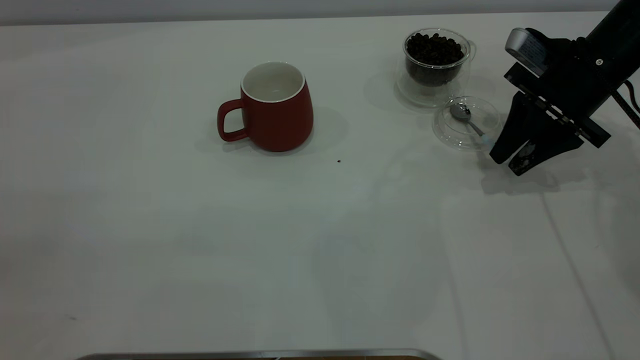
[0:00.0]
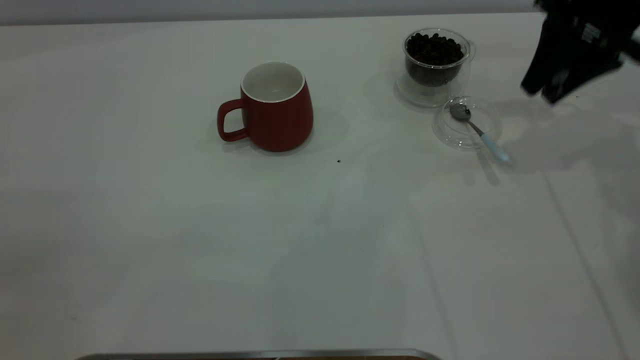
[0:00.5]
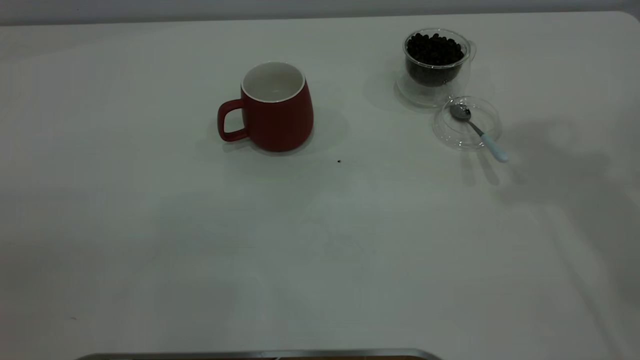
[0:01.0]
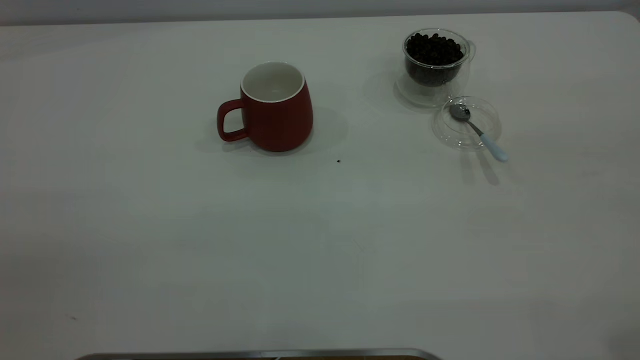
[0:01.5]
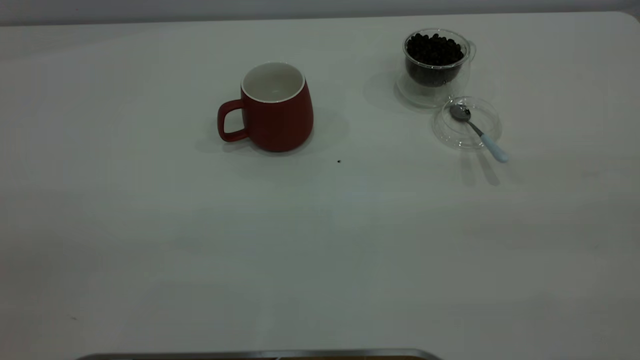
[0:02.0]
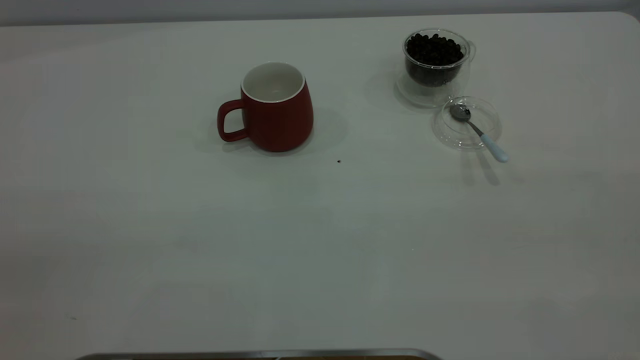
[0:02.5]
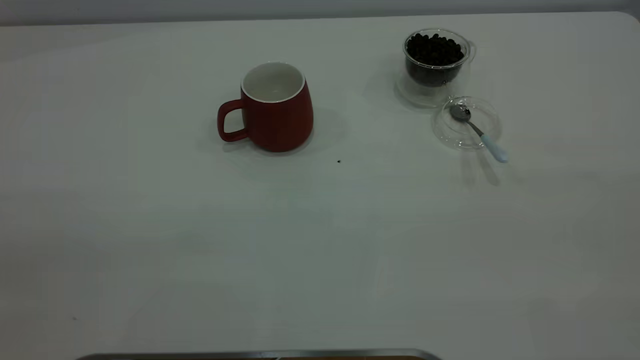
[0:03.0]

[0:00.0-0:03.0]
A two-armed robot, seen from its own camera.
Task of the whole recording: the left gripper place the red cup in the center of the table, the right gripper take the blue spoon from the cup lid and scoop out the coffee beans from the coffee cup and put them into the red cup, the right gripper put the spoon back into the cup lid.
0:00.0 to 0:01.5: The right gripper heads upward and backward, covering approximately 40 cm.

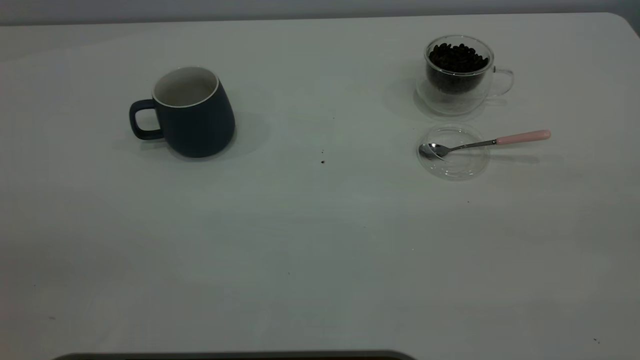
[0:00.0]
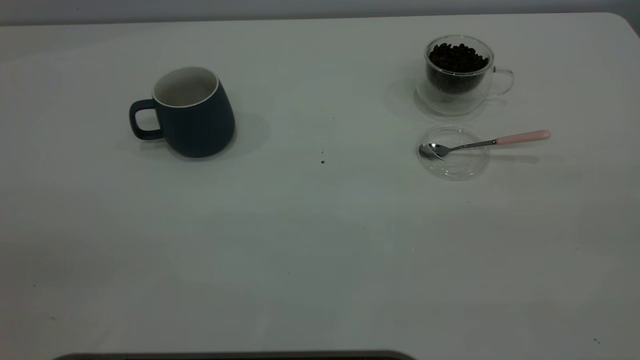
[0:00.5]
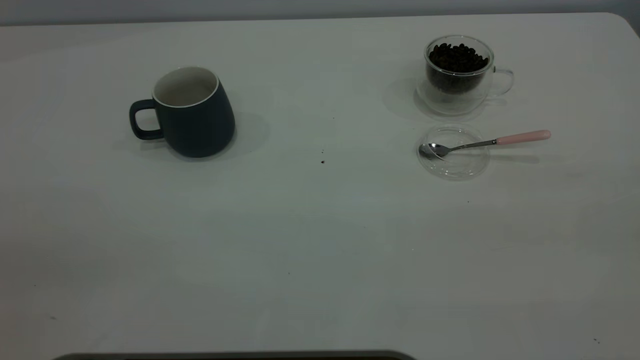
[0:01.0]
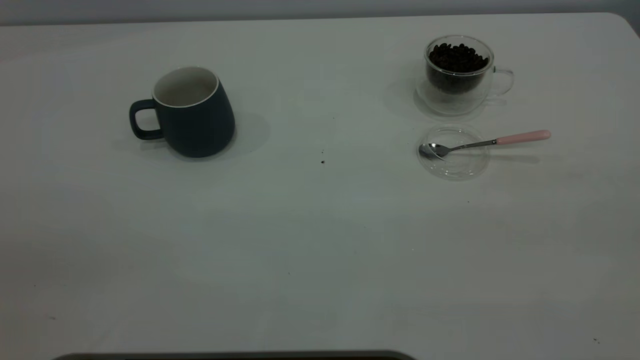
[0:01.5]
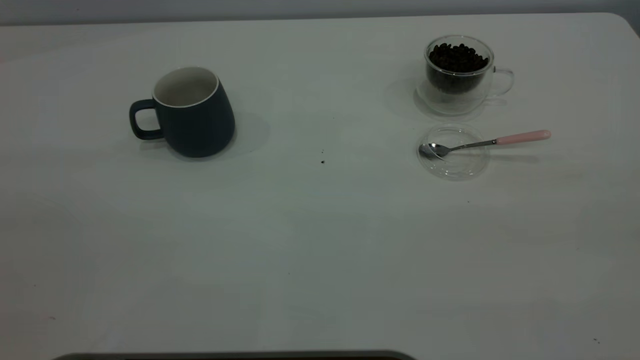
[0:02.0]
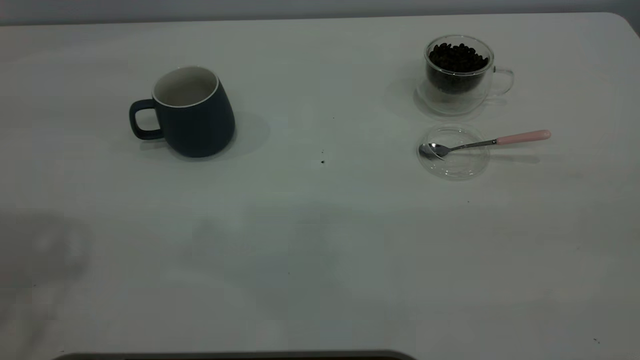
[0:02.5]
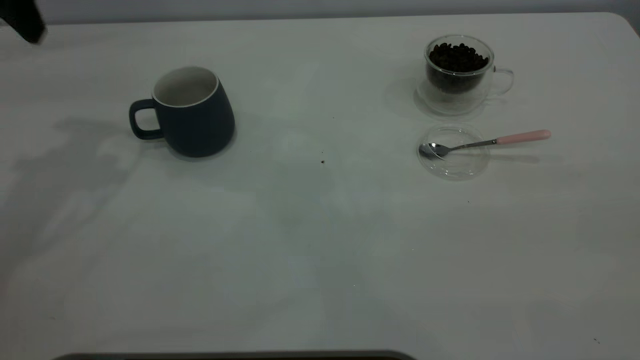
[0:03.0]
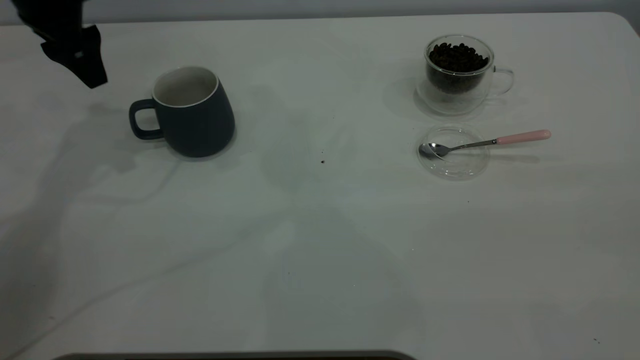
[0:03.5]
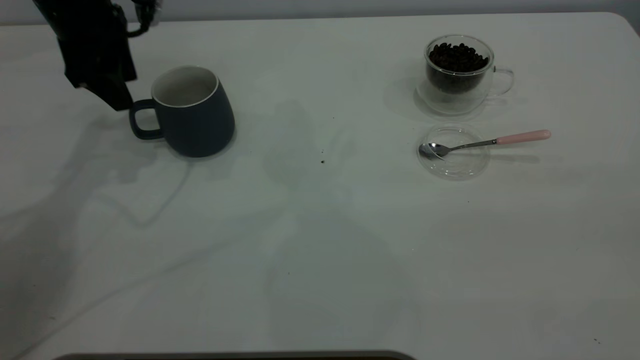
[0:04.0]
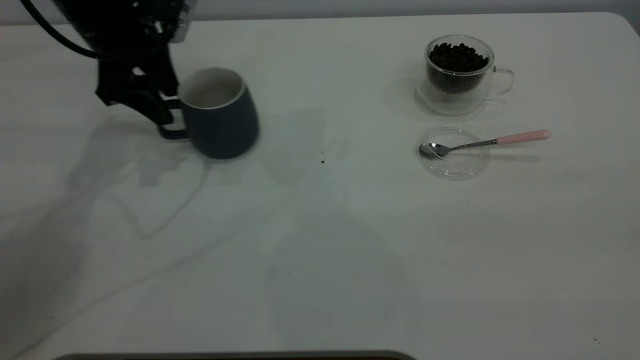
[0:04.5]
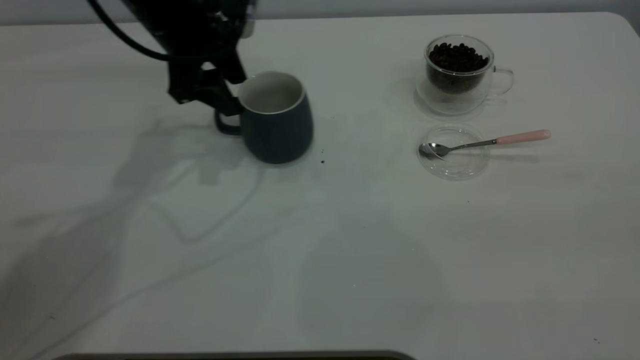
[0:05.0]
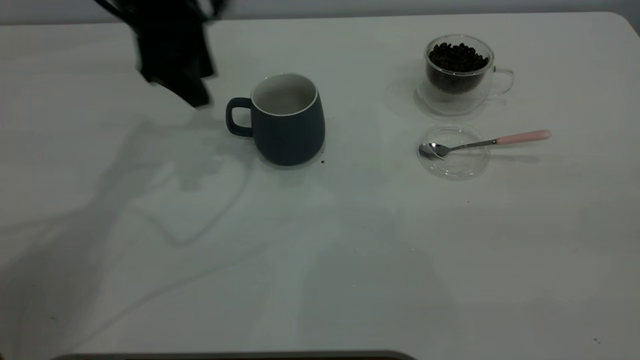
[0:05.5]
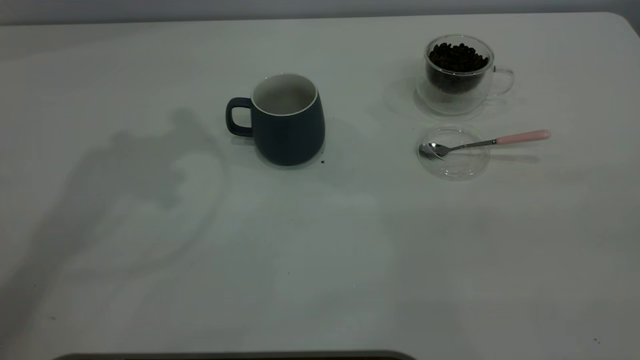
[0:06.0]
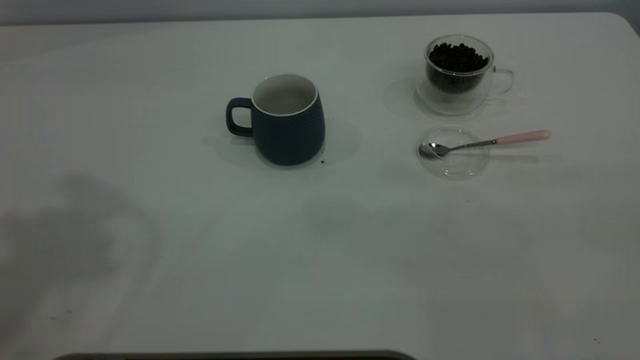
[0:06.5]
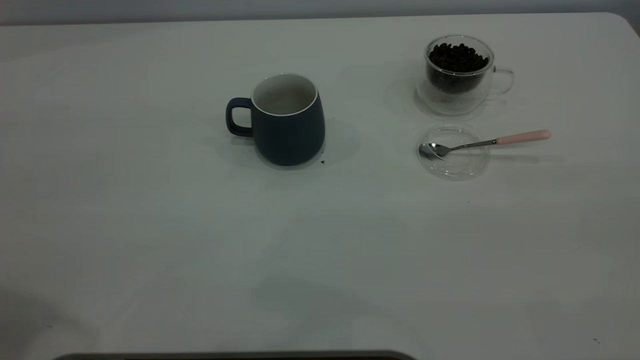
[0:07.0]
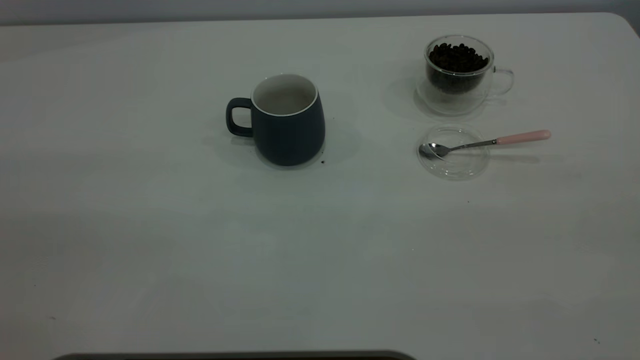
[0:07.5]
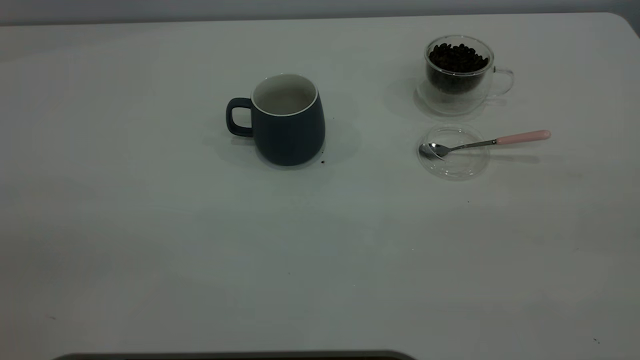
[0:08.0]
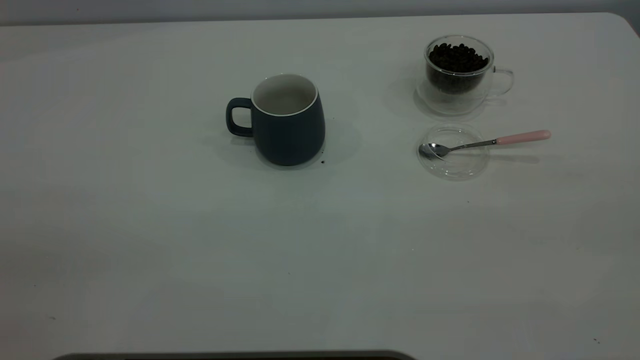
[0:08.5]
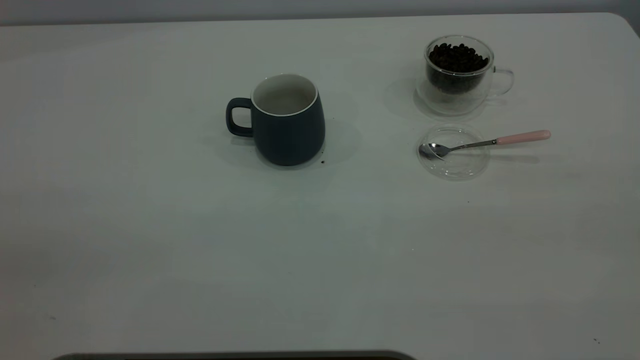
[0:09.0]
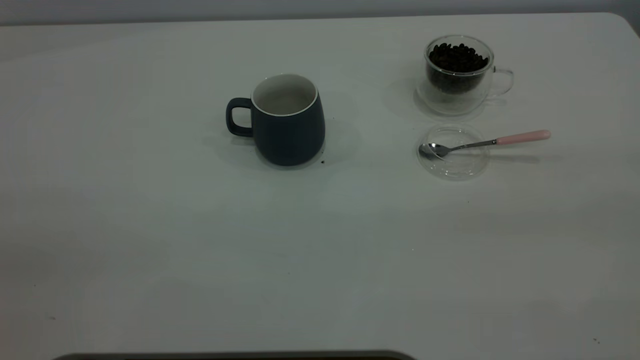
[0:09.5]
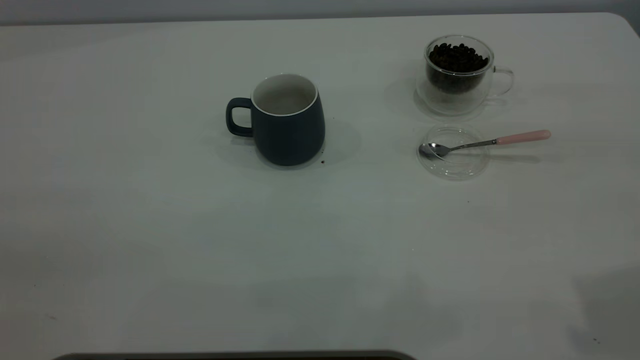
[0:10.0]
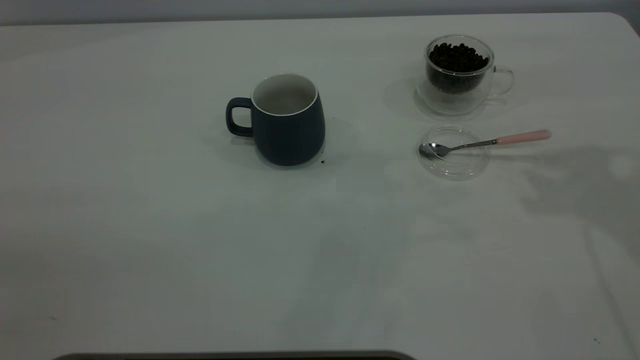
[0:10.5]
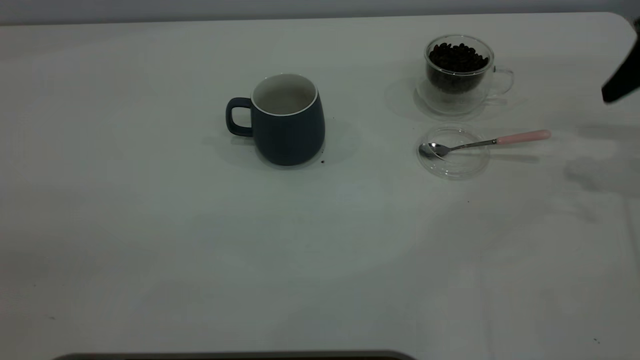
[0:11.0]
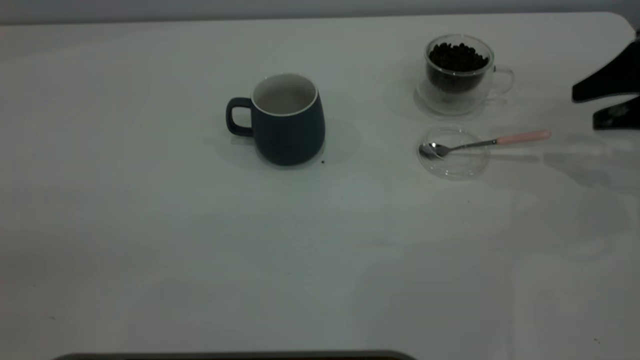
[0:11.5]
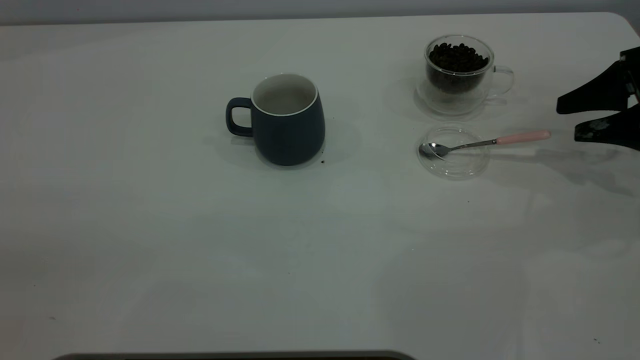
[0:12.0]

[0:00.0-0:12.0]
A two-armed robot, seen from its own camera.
Task of the whole recording: the left gripper place the grey cup in the center of the table, the right gripper take the pink spoon from the cup lid and scoop out the coffee beans from the coffee cup and put them into the grey cup, the right gripper put the spoon back into the cup lid.
Step, 0:00.0 to 0:05.0: Move the cup to the center of view.
0:02.0 to 0:04.0: The left gripper is displaced forward and downward by about 40 cm.
0:04.0 to 0:06.0: The left gripper goes approximately 20 cm upward.
0:10.0 to 0:12.0: The right gripper travels downward and forward by about 35 cm.

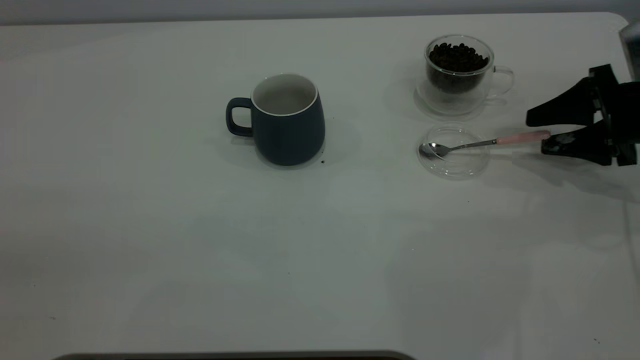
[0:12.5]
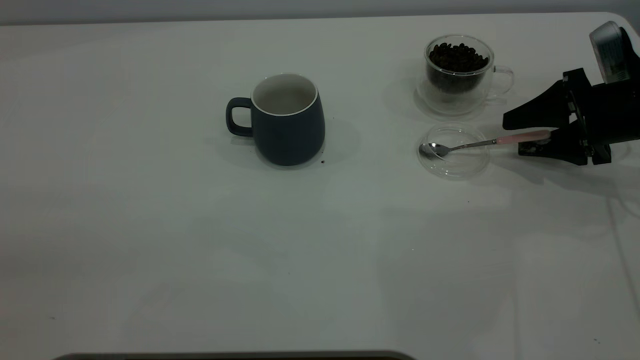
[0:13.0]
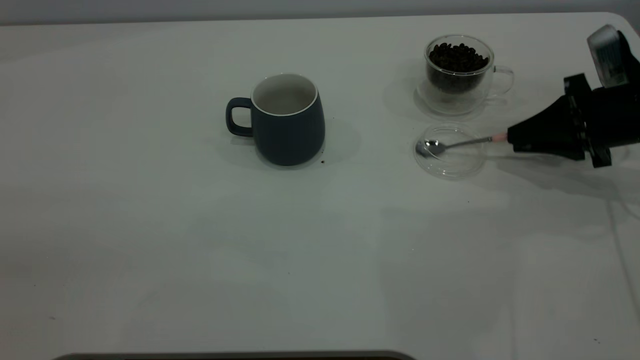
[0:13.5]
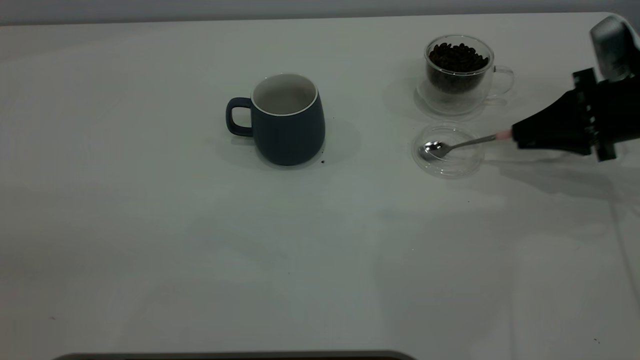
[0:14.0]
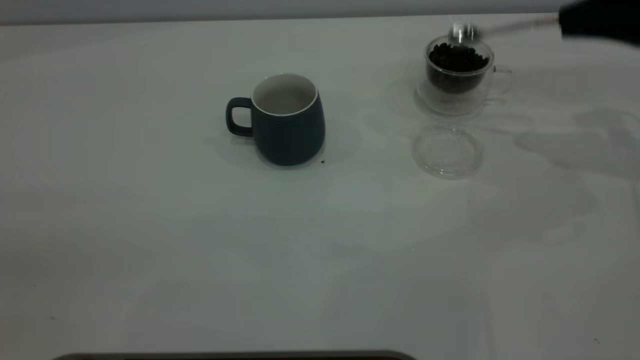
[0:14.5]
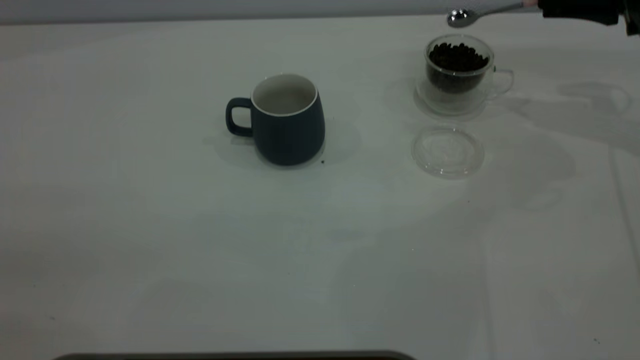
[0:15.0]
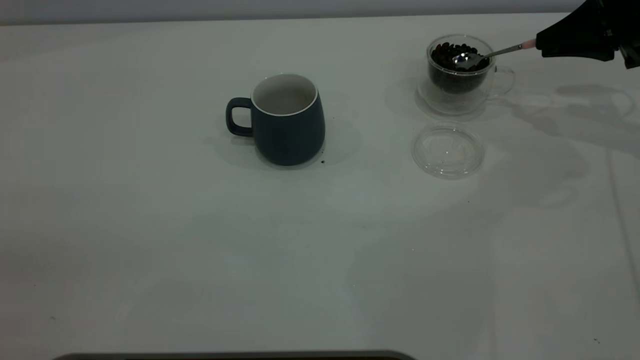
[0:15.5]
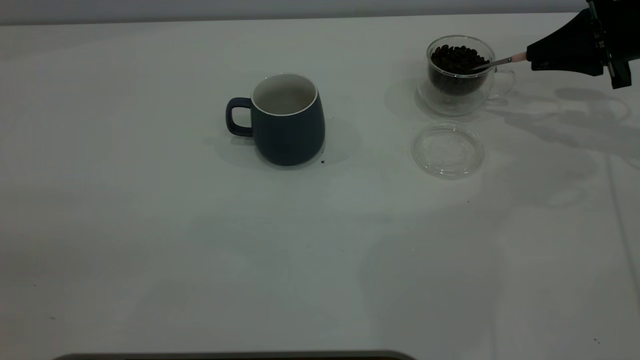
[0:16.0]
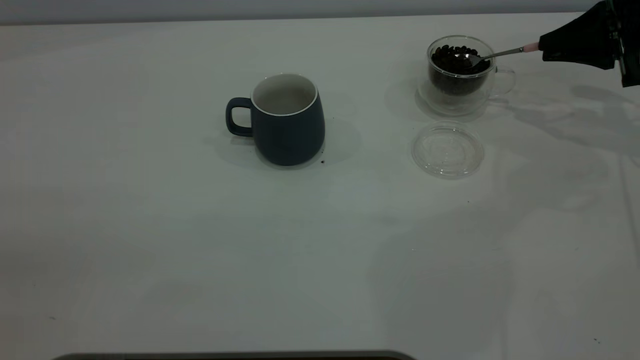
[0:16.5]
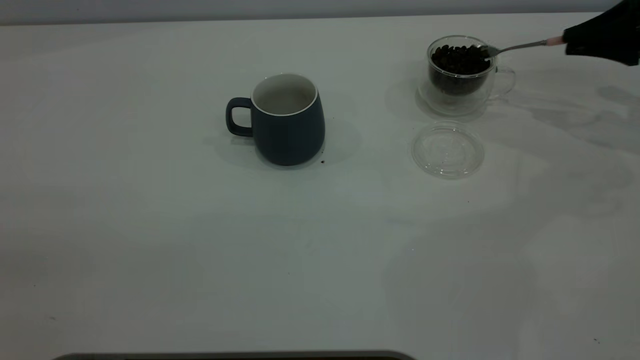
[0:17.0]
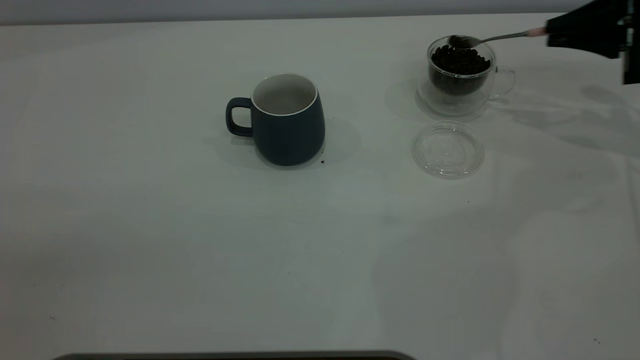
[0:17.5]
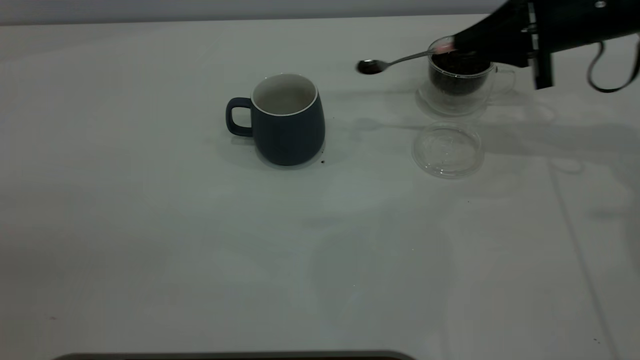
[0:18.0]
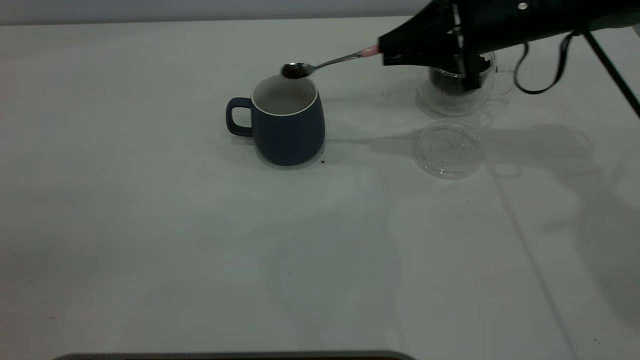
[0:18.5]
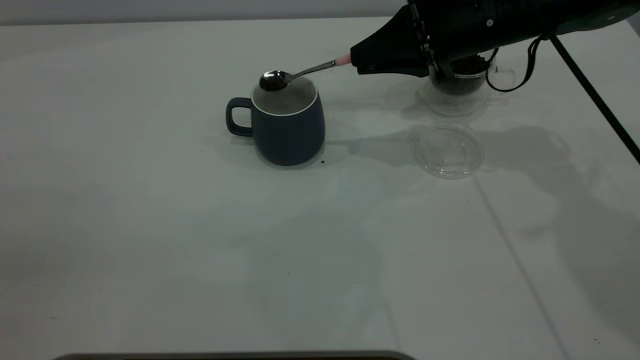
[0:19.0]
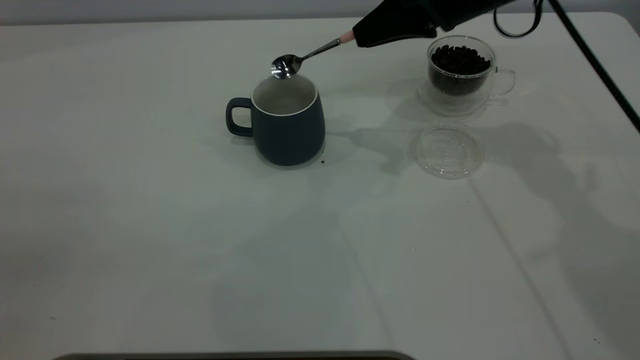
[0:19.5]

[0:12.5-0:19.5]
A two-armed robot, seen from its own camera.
Task of the whole recording: the left gripper place the grey cup in the center of the table, the right gripper take the pink spoon from the cup lid and scoop out the coffee beans from the coffee cup and put them into the grey cup, the right gripper put the spoon back into the cup lid.
0:12.5 to 0:14.5: The right gripper moves upward, some 10 cm, and closes its fingers.
0:14.5 to 0:16.0: The right gripper heads downward, covering some 5 cm.
0:16.0 to 0:17.5: The grippers make only small movements.
0:17.5 to 0:19.5: The right gripper shifts about 20 cm to the left.
